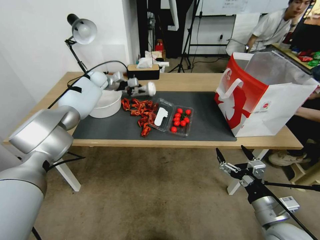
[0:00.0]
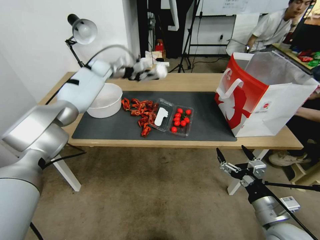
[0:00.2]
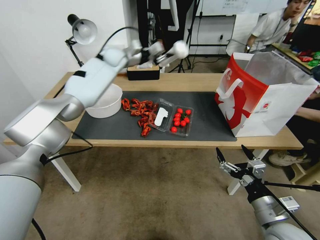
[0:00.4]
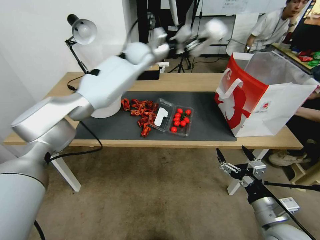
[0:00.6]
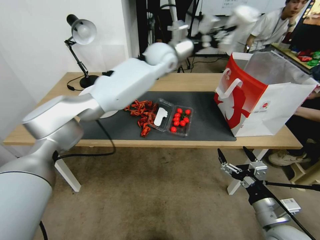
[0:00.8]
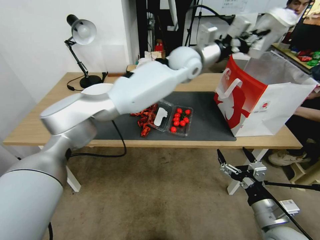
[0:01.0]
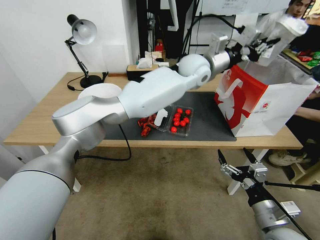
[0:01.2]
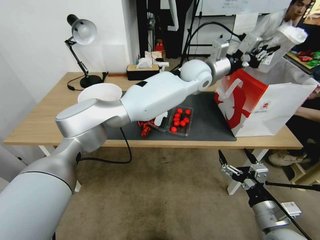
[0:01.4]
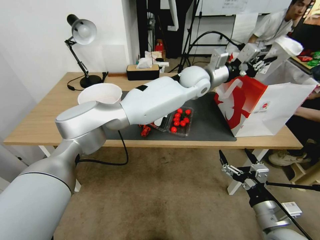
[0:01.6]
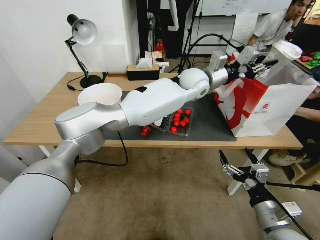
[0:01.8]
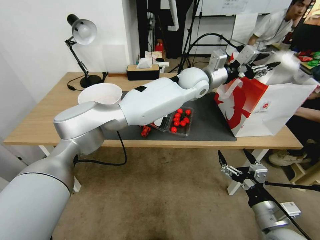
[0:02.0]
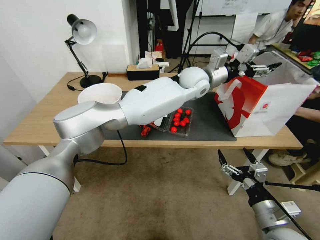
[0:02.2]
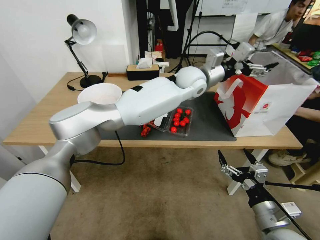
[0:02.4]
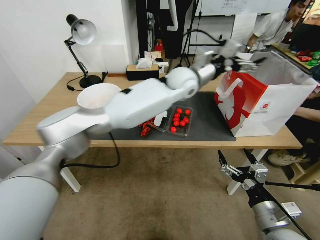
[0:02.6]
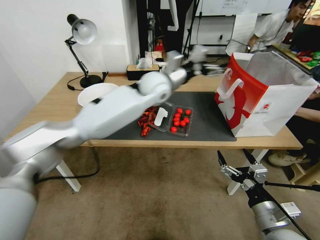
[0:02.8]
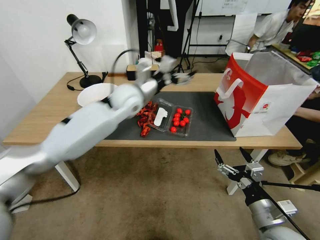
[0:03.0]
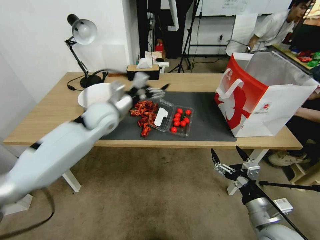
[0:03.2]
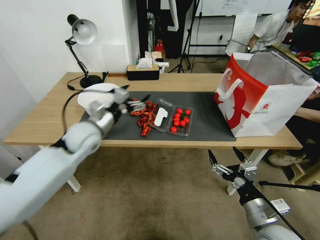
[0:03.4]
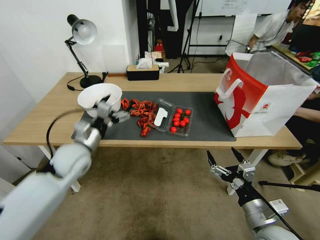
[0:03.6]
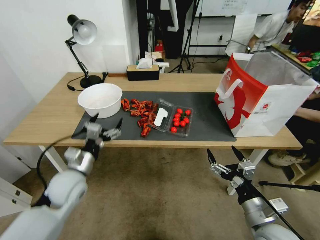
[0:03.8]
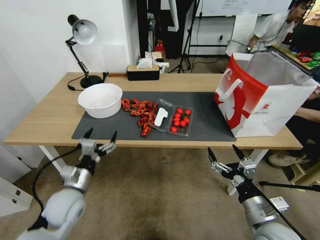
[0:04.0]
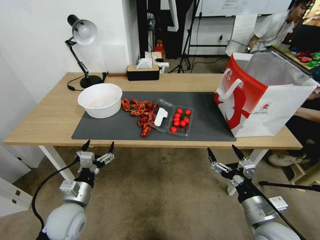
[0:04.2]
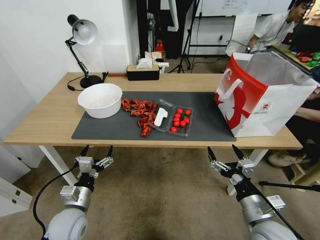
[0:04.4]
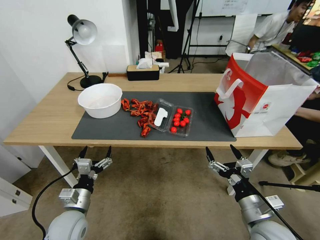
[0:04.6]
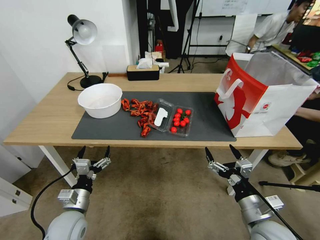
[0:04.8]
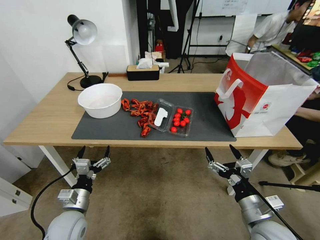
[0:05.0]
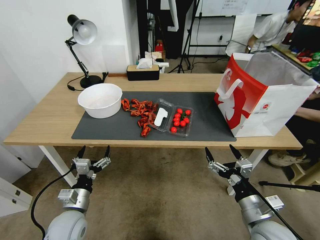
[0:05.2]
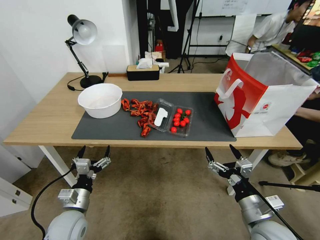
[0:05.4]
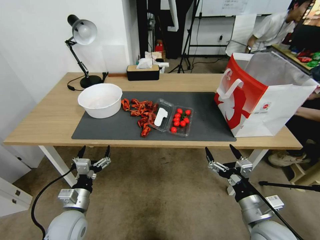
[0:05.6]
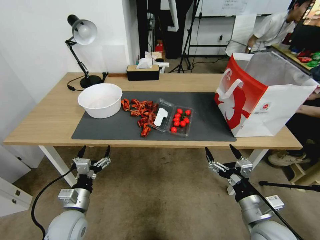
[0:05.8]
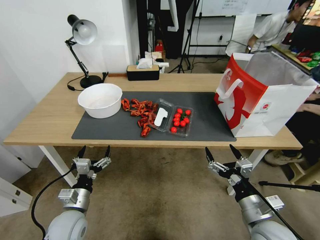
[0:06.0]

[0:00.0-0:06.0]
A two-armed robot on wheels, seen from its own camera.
0:00.0 to 0:01.6: The left gripper heads to the right, covering about 40 cm.
0:01.6 to 0:03.0: The left gripper heads to the left, covering approximately 20 cm, and opens its fingers.
0:03.0 to 0:04.4: The left gripper moves backward, downward and to the left, about 40 cm.
0:04.4 to 0:06.0: The grippers stay close to where they were, moving slightly.
